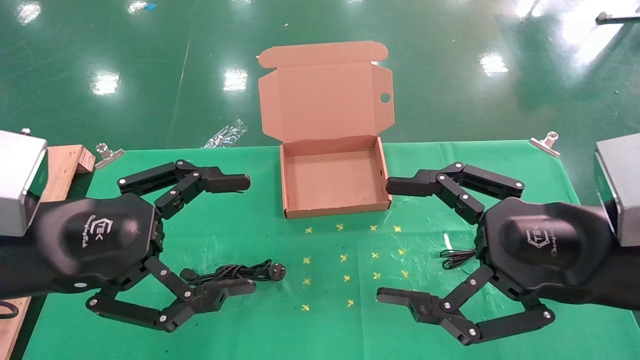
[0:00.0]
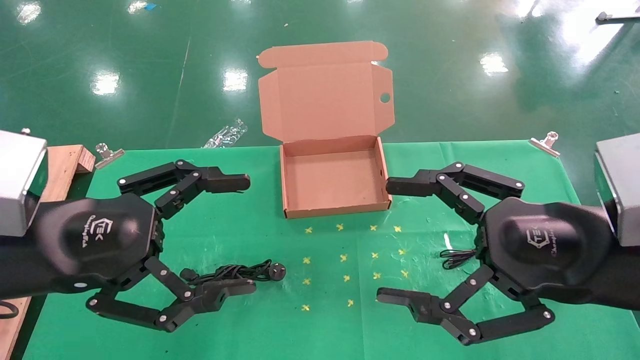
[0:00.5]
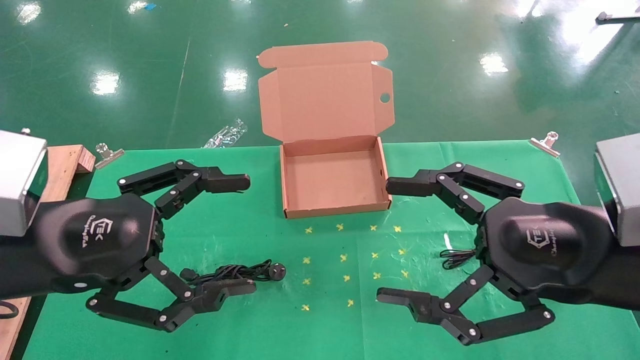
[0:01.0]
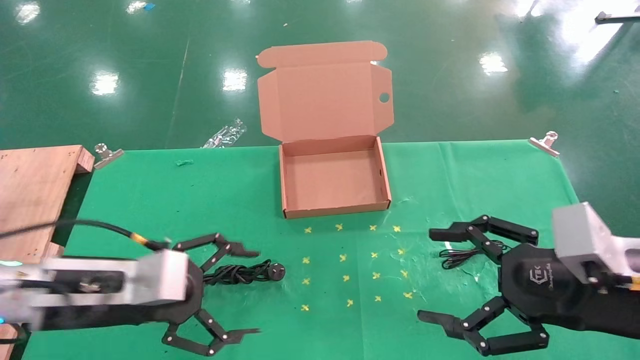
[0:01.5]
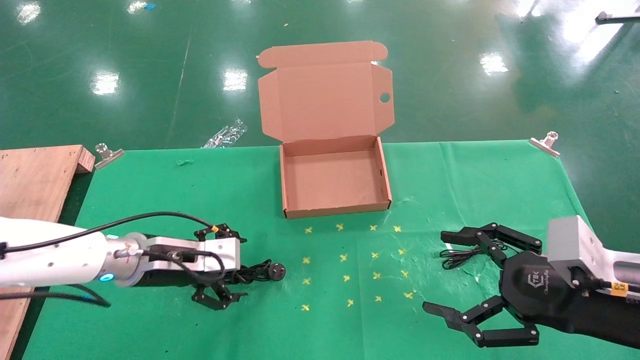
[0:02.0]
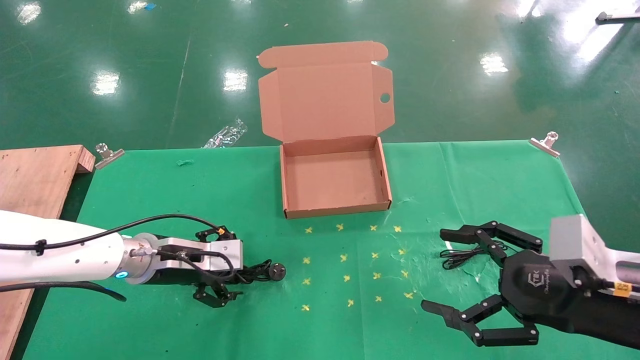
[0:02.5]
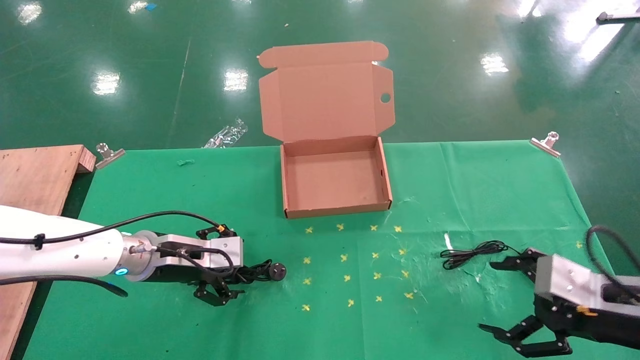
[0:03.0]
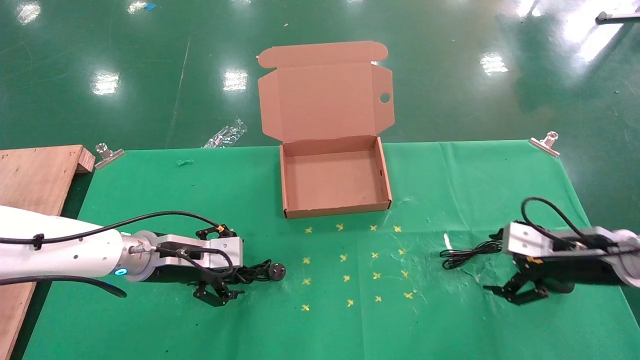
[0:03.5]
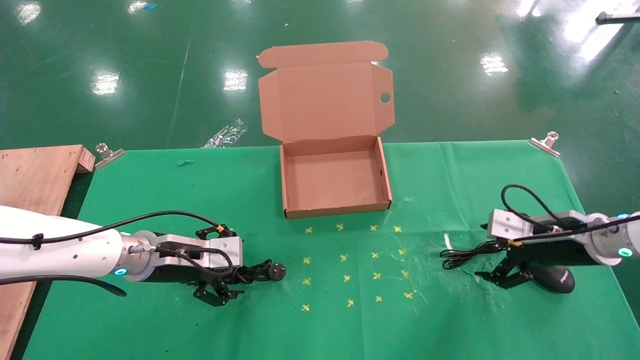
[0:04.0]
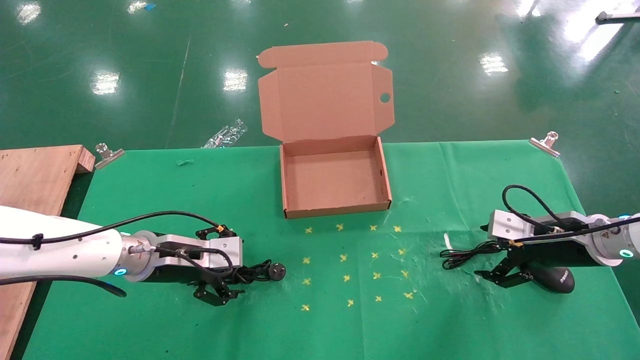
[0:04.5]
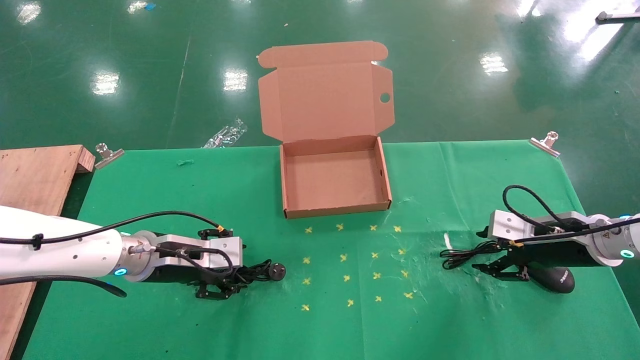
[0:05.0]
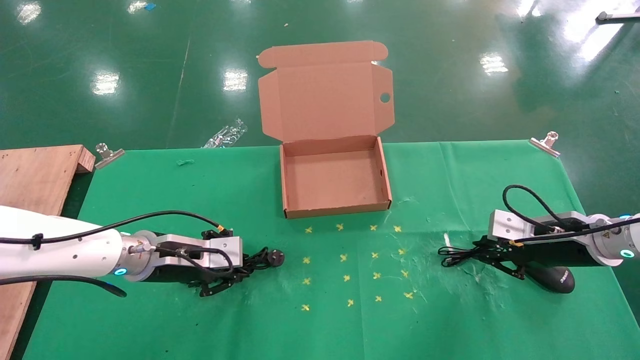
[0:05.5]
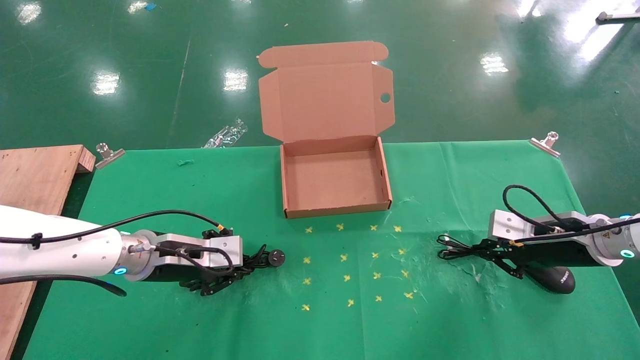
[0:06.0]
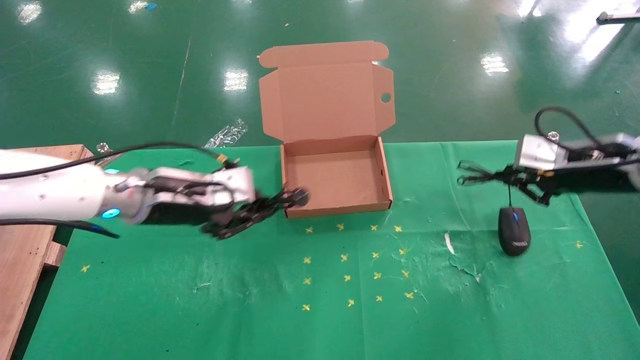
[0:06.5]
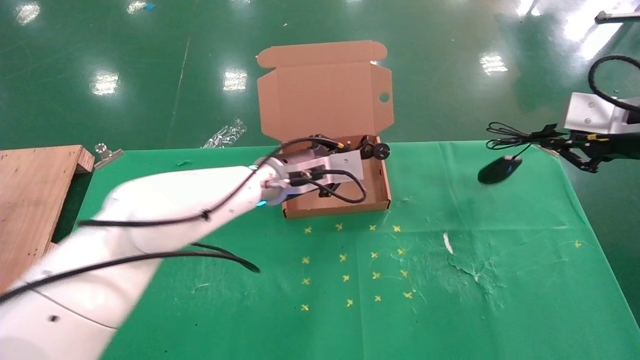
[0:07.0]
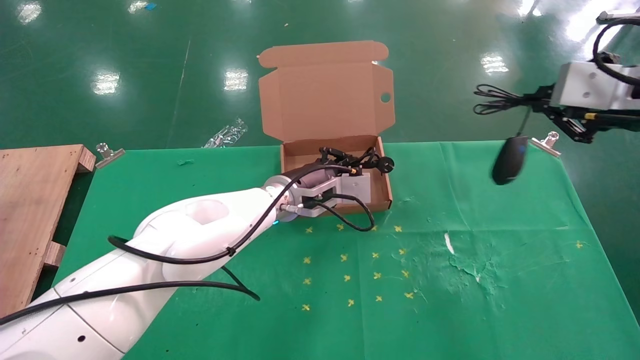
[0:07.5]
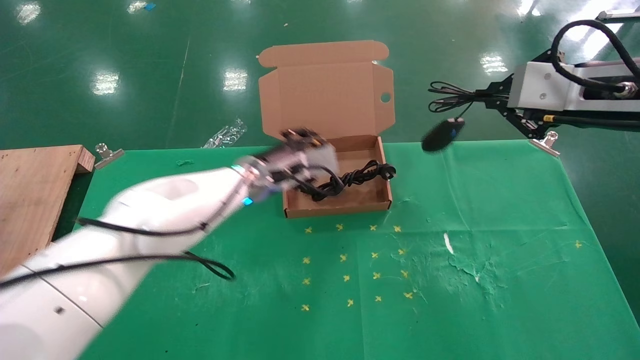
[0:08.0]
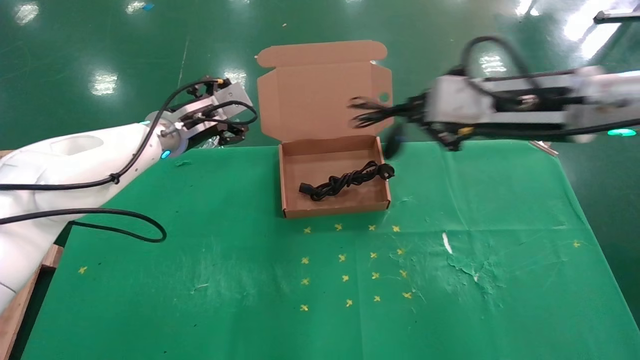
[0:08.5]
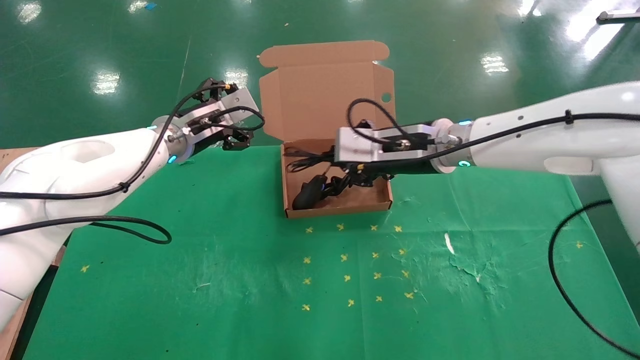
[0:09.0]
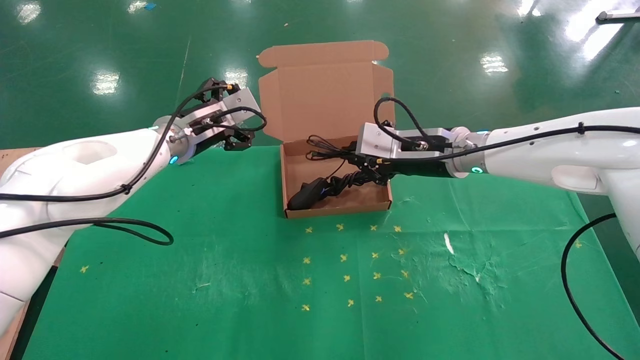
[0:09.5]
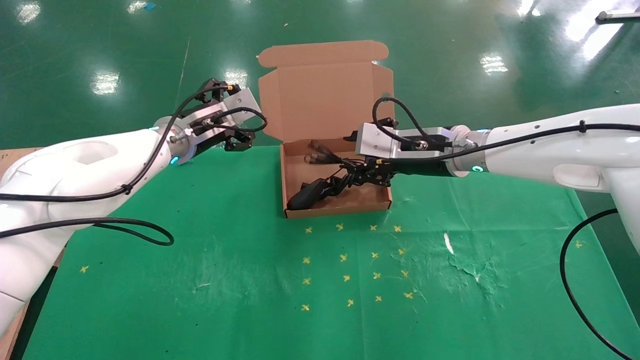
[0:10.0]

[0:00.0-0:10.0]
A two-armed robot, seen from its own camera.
Task of the whole recording: grasp data cable left put into box grasp mouse right put into box.
Step, 0:02.0 to 0:05.5: Simultaneously pick up the mouse and power cord from the accessory packaging area.
0:00.0 to 0:02.0: The right gripper moves downward and to the right, roughly 10 cm, while the left gripper moves forward and downward, roughly 20 cm.
0:02.0 to 0:04.0: The right gripper is displaced forward by roughly 20 cm.
0:04.0 to 0:06.0: The right gripper closes; the left gripper closes up.
0:06.0 to 0:08.0: The right gripper heads upward and backward, covering some 25 cm, while the left gripper travels to the right, forward and upward by some 20 cm.
0:08.0 to 0:10.0: The right gripper heads to the left, forward and downward, covering roughly 20 cm. Meanwhile the left gripper travels to the left by some 10 cm, and opens up.

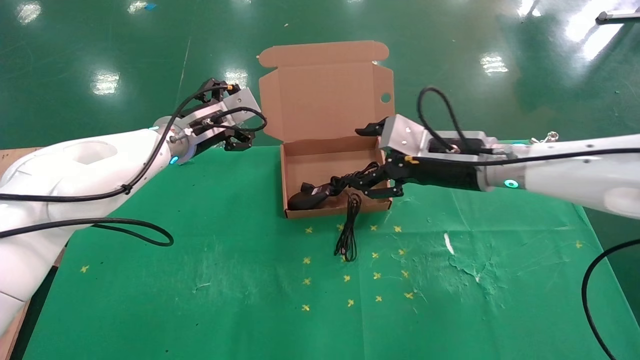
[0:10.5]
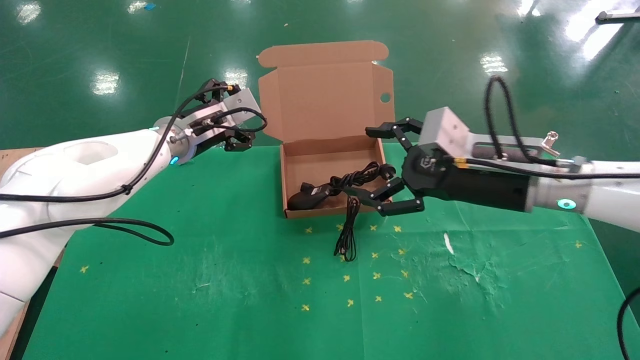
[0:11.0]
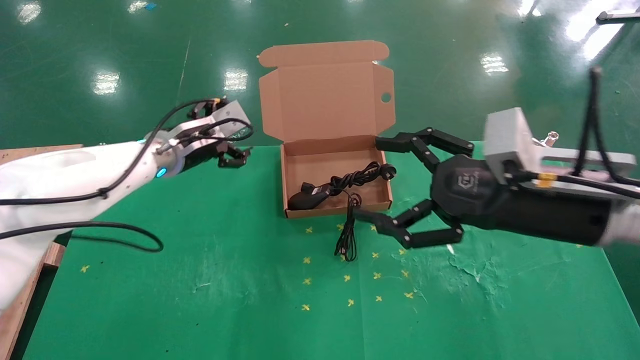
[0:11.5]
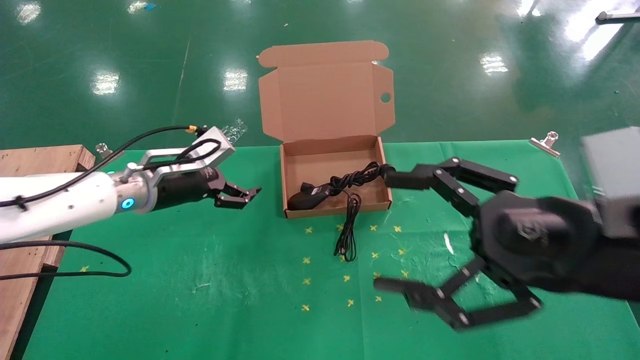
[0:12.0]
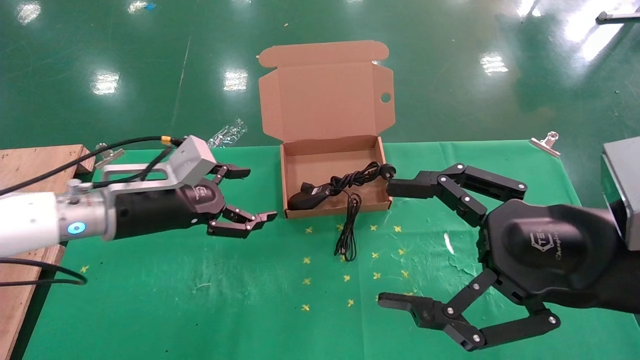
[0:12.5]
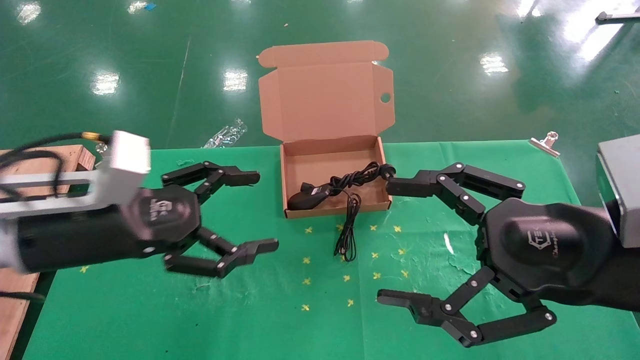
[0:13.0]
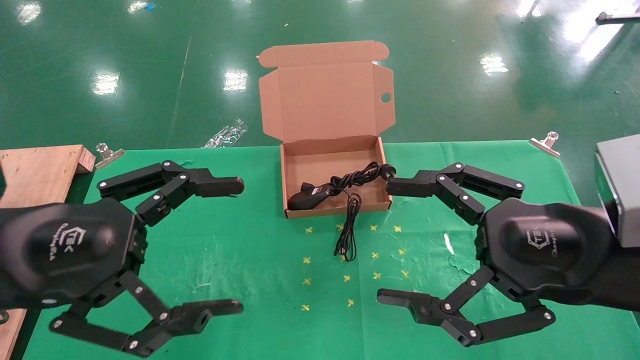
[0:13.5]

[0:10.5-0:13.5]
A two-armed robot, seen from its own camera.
Task of the whole recording: grasp data cable left put into box grasp mouse right put into box.
0:10.5 to 0:12.0: The right gripper moves backward, about 20 cm; the left gripper goes roughly 10 cm backward and downward.
0:12.0 to 0:13.5: The left gripper heads backward, covering approximately 25 cm.
